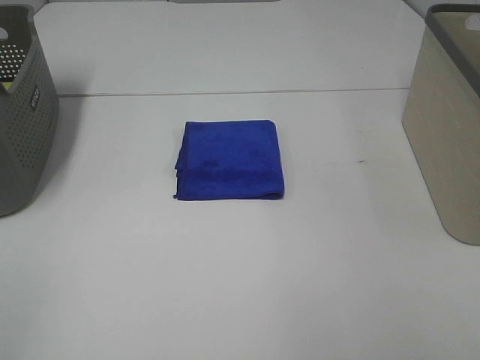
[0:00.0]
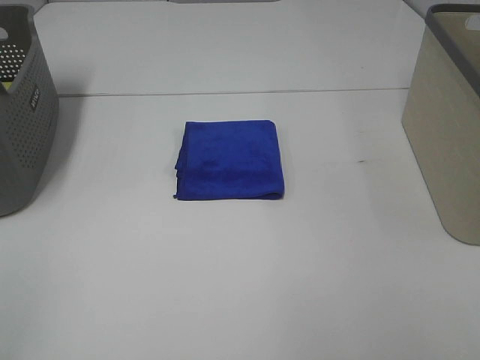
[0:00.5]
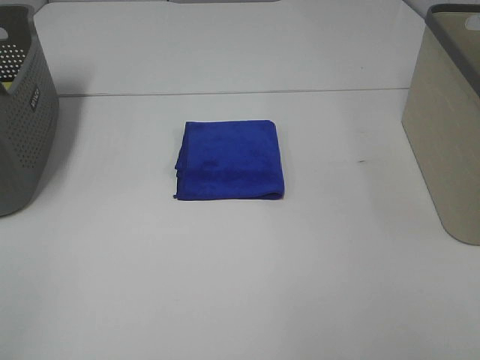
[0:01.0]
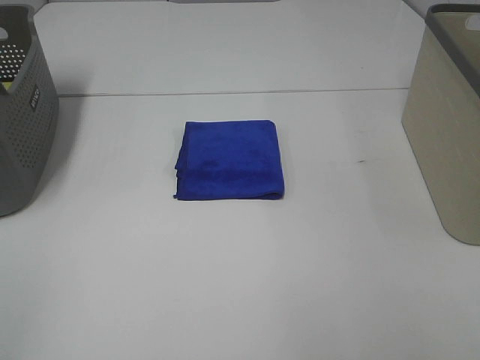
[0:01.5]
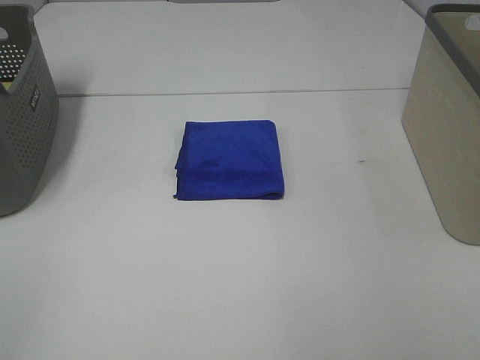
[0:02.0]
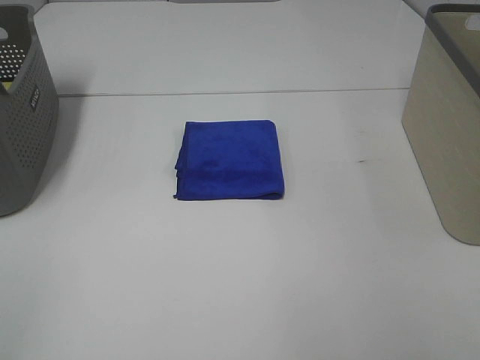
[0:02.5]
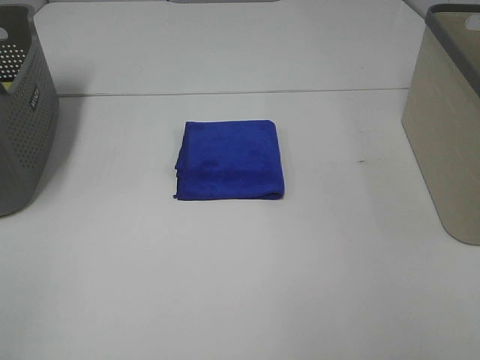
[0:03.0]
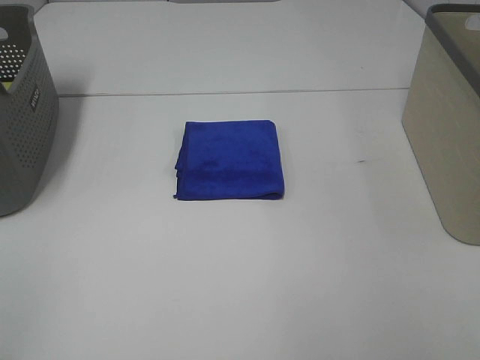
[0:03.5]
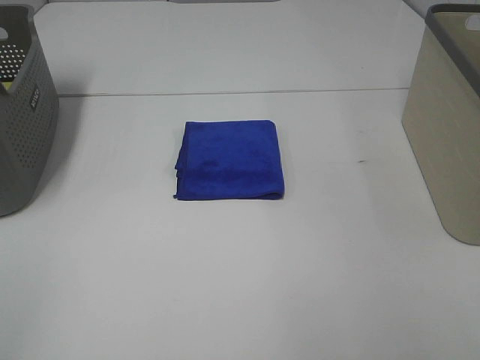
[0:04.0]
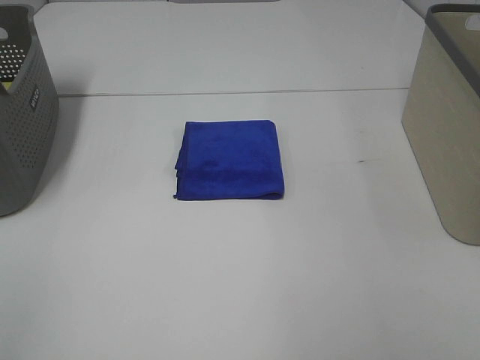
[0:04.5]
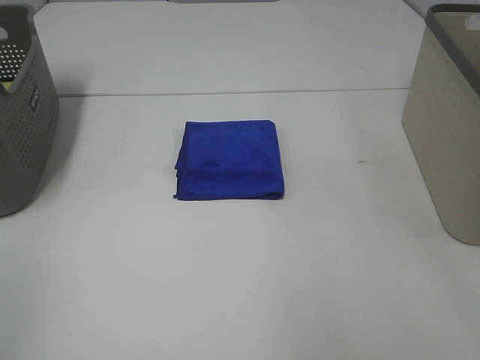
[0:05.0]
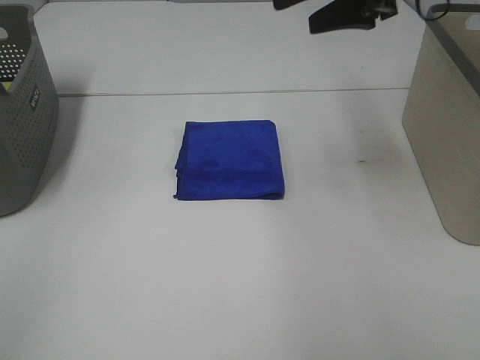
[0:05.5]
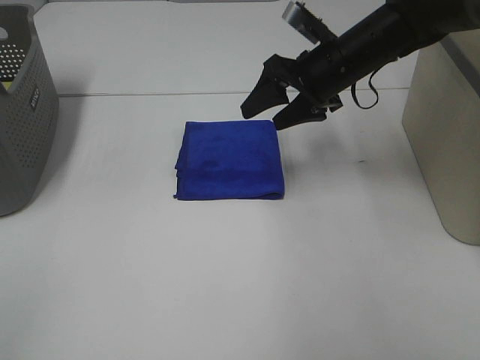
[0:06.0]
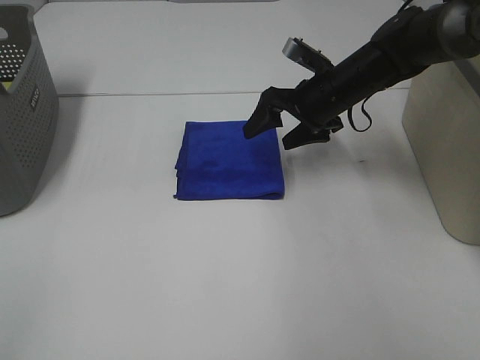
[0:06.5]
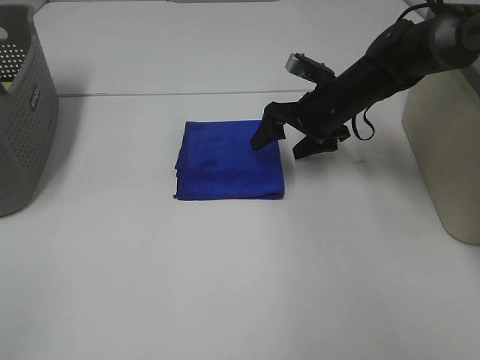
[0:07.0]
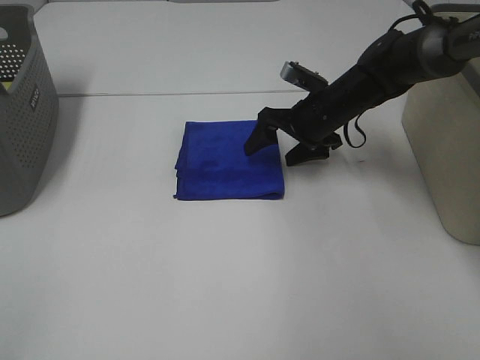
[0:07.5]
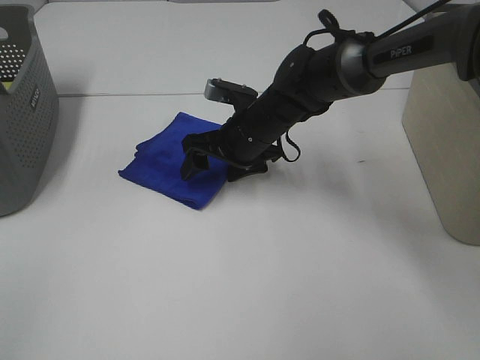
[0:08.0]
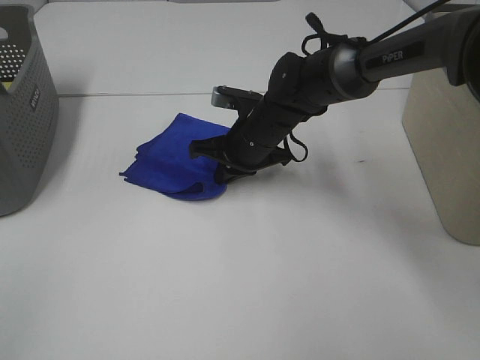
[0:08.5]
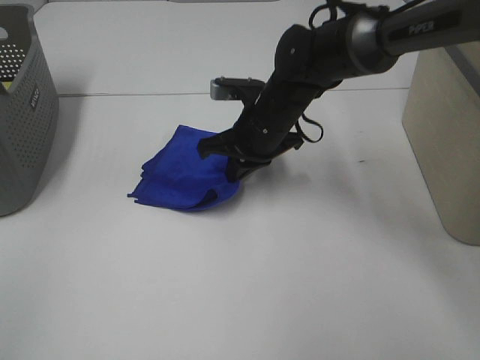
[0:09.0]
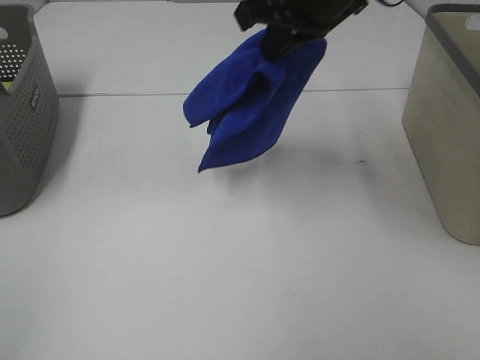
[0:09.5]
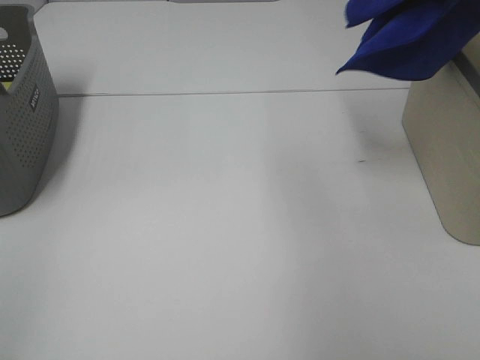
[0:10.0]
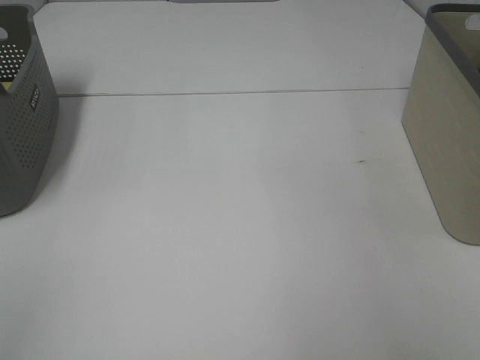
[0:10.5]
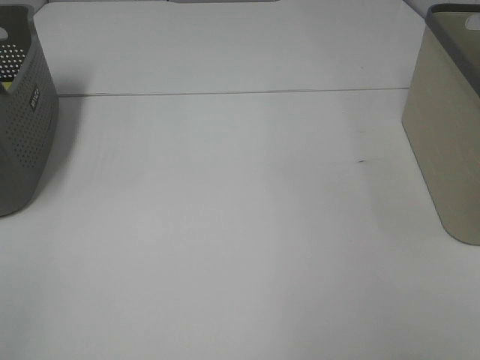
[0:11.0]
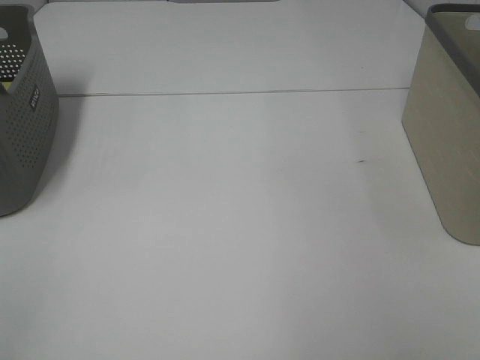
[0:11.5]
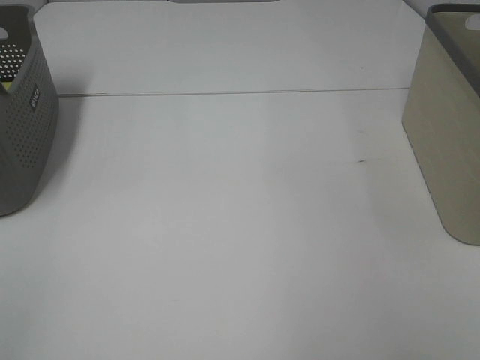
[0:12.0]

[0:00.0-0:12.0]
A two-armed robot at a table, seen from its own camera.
Step, 0:00.0 to 0:08.5: Right hand: grab the folded blue towel.
Step, 0:09.0 to 0:12.0: Right hand: place the blue towel in right basket.
0:00.0 to 0:04.0: The two grippers keep their place.
0:04.0 to 0:06.0: The right gripper shifts approximately 50 cm forward and to the left.
0:06.0 to 0:08.0: The right gripper heads to the left and downward, covering about 15 cm.
0:08.0 to 0:10.0: The right gripper heads upward and to the right, covering roughly 40 cm, and closes up.
0:10.0 to 0:12.0: The right gripper shifts some 15 cm to the right and downward, and opens its fingers.

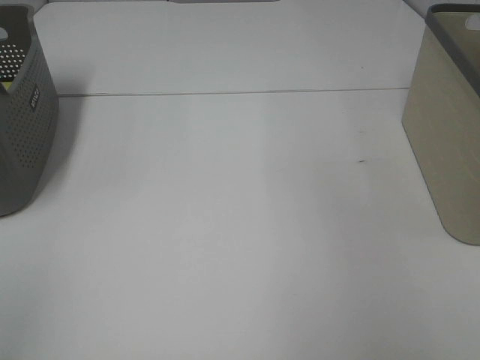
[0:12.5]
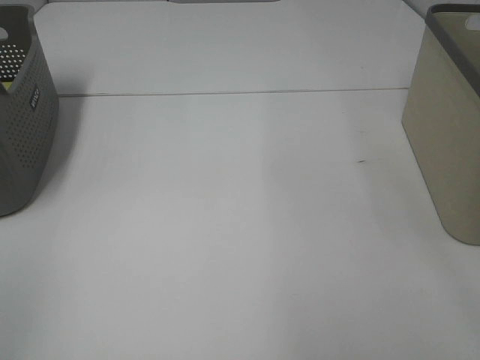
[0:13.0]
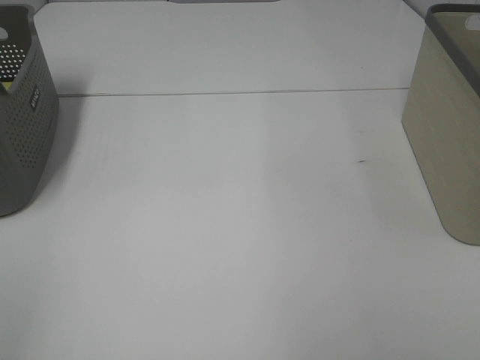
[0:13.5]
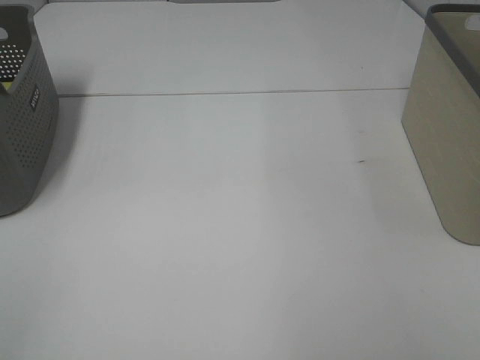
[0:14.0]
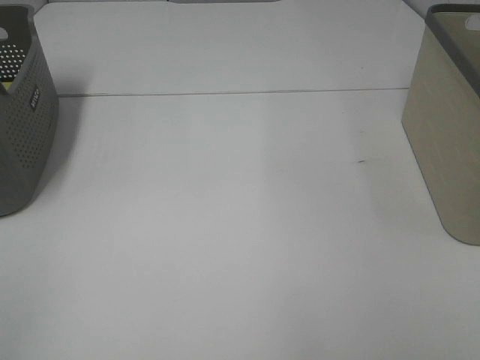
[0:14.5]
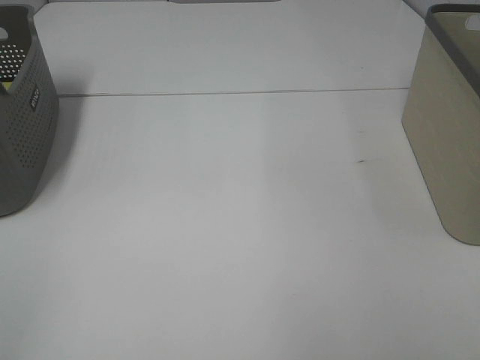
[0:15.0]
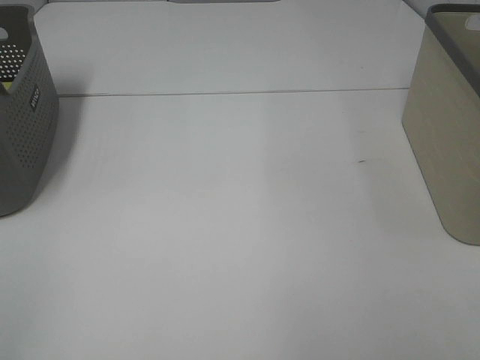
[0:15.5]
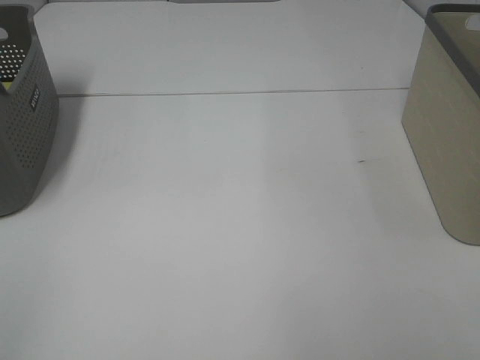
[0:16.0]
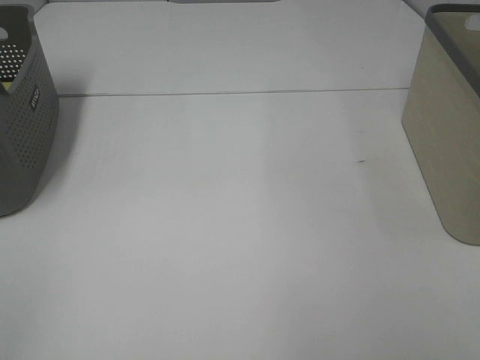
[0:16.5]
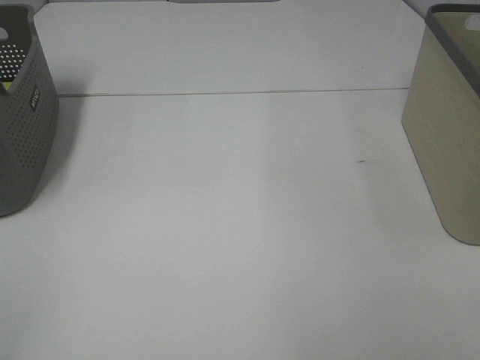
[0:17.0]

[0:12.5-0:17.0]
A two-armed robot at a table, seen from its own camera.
0:14.5 to 0:17.0: Both grippers stay about where they are.
